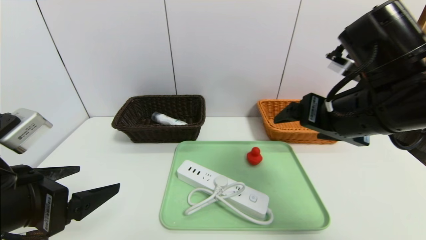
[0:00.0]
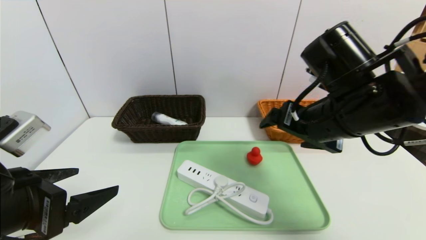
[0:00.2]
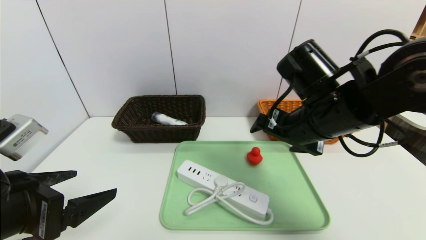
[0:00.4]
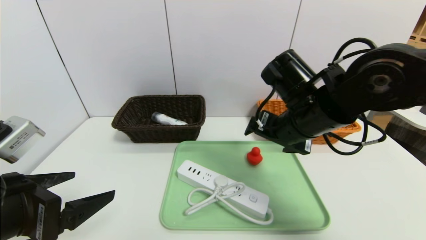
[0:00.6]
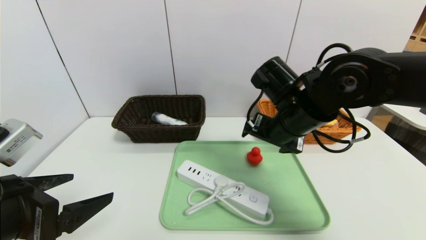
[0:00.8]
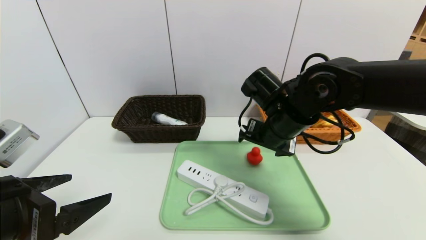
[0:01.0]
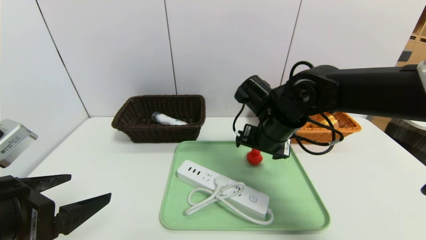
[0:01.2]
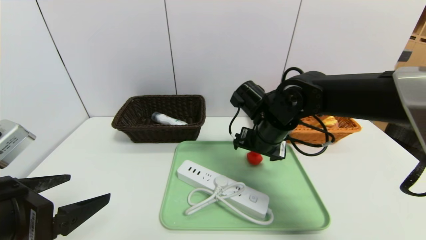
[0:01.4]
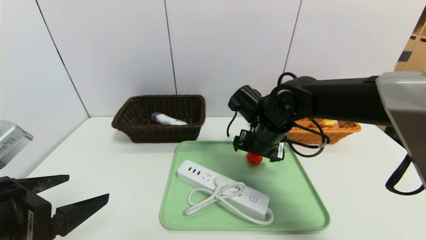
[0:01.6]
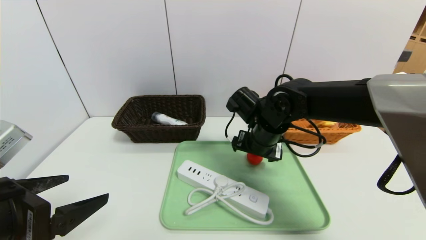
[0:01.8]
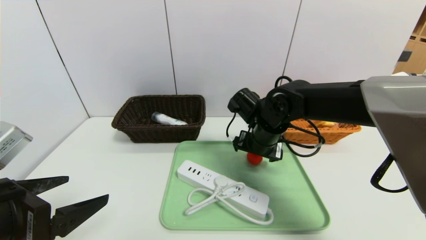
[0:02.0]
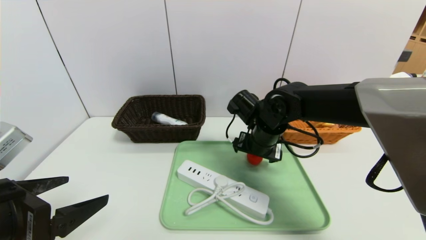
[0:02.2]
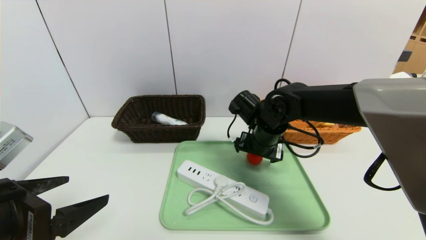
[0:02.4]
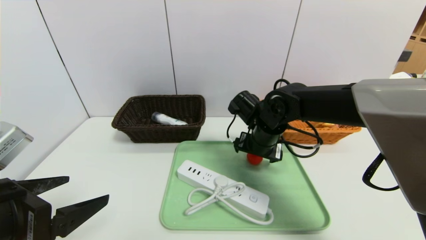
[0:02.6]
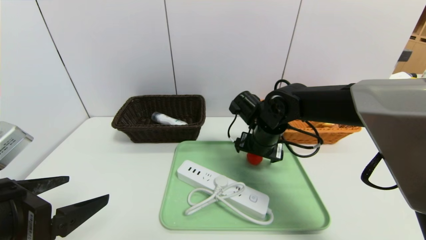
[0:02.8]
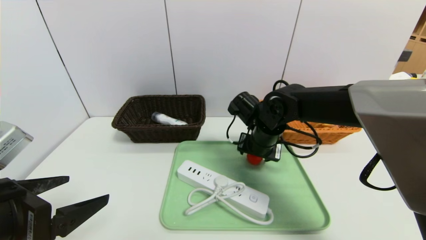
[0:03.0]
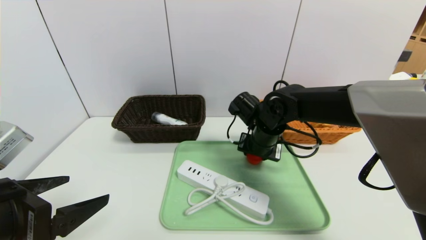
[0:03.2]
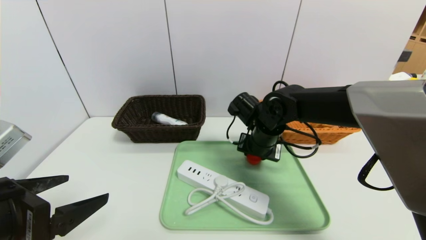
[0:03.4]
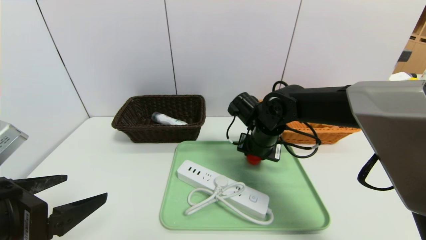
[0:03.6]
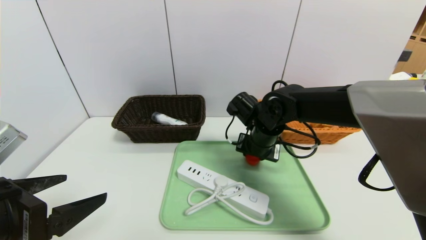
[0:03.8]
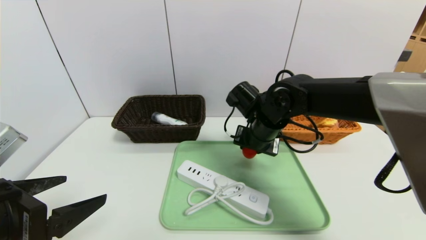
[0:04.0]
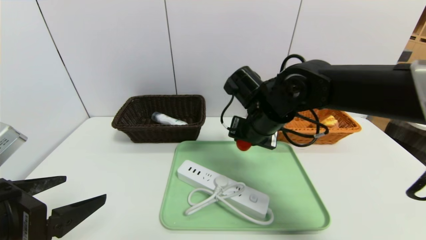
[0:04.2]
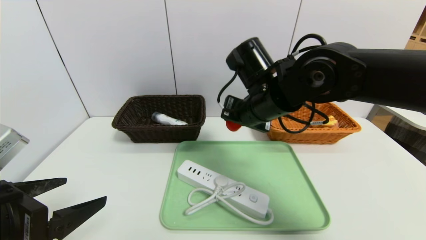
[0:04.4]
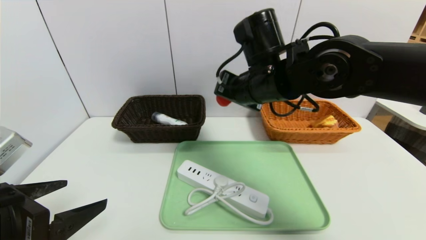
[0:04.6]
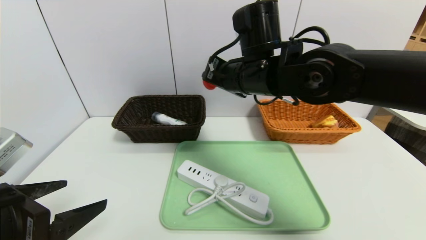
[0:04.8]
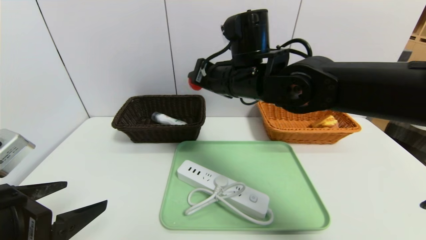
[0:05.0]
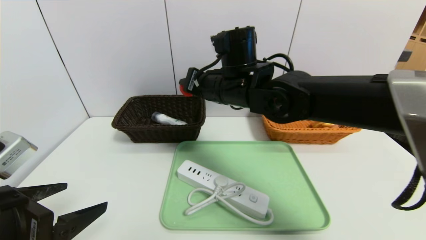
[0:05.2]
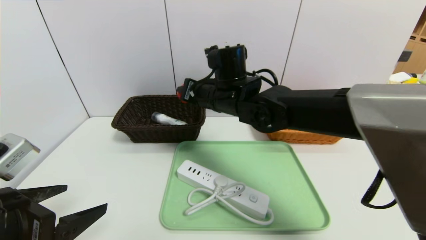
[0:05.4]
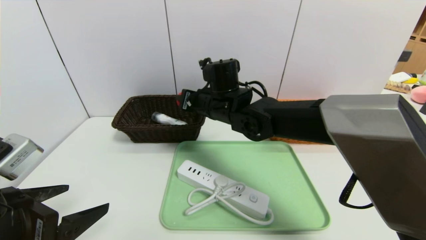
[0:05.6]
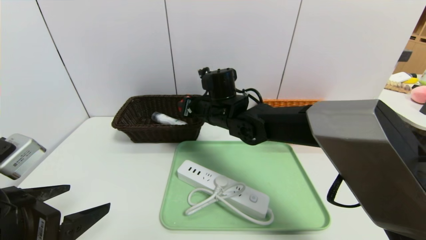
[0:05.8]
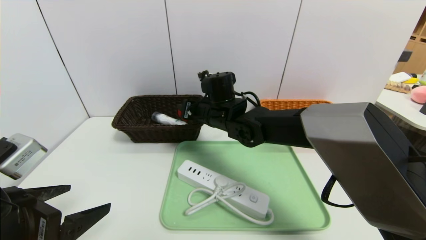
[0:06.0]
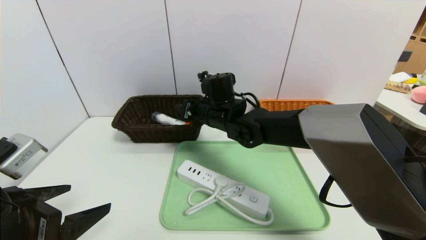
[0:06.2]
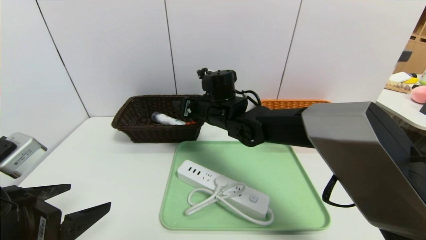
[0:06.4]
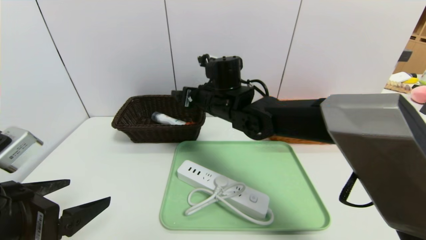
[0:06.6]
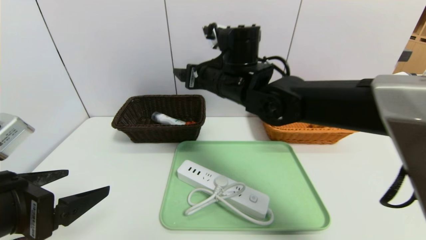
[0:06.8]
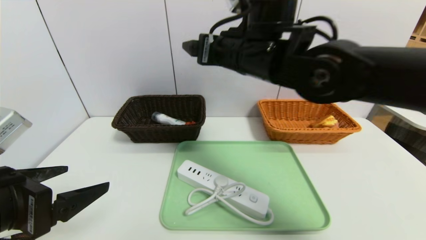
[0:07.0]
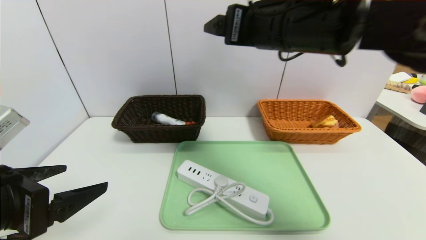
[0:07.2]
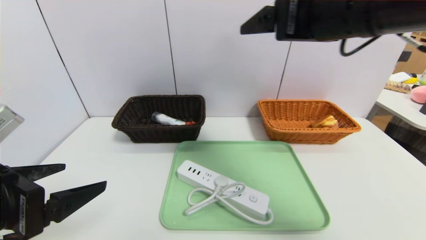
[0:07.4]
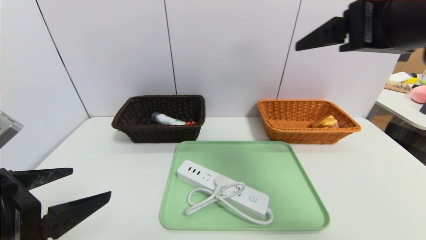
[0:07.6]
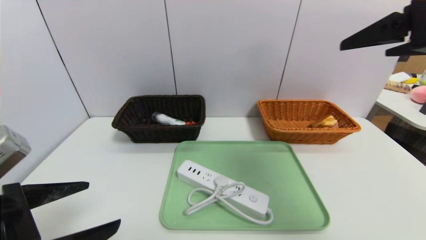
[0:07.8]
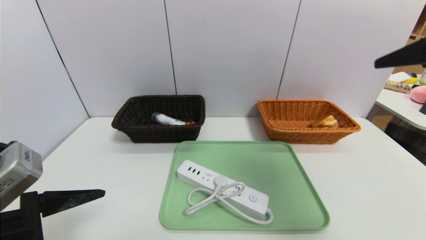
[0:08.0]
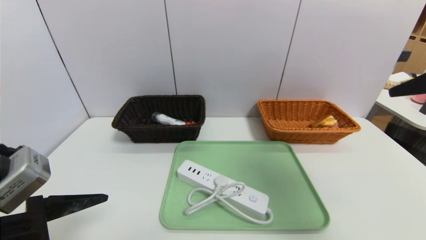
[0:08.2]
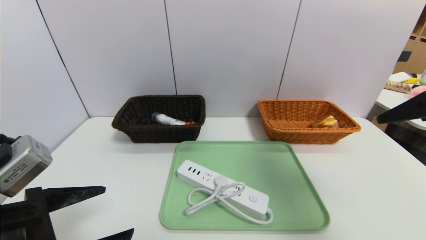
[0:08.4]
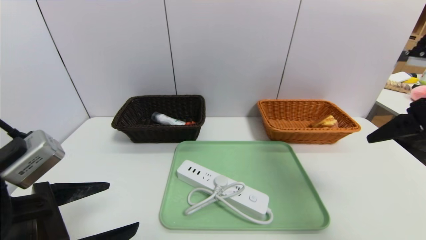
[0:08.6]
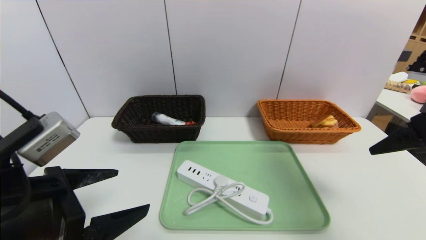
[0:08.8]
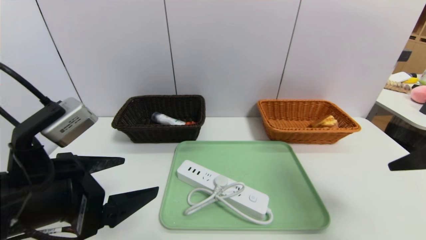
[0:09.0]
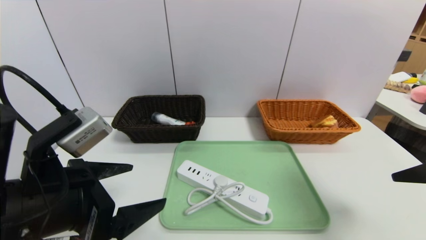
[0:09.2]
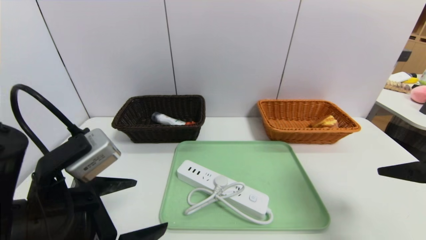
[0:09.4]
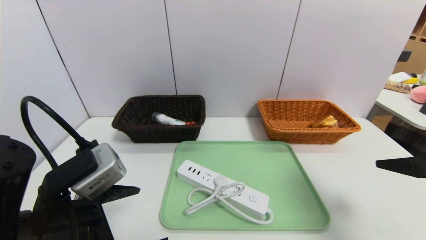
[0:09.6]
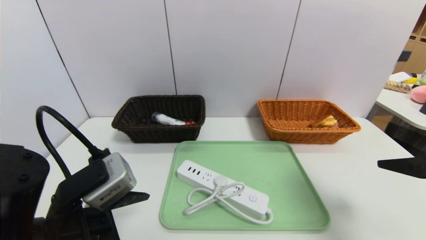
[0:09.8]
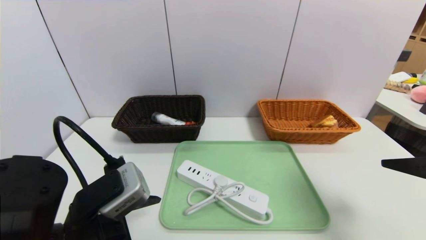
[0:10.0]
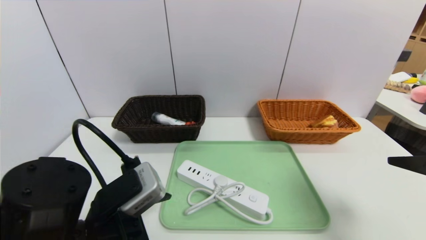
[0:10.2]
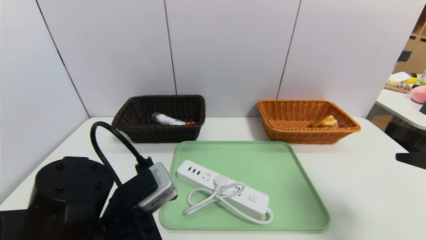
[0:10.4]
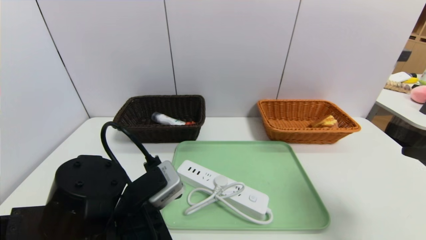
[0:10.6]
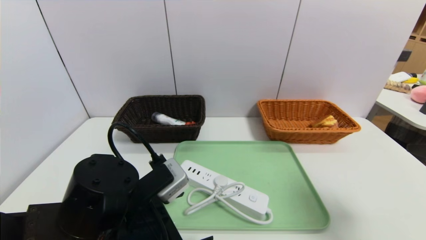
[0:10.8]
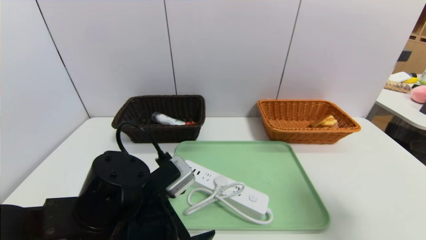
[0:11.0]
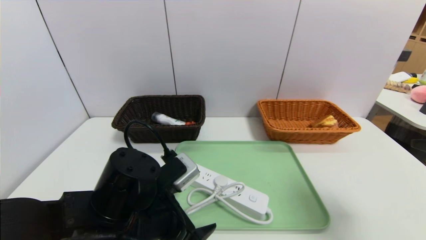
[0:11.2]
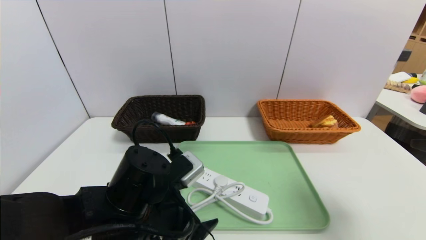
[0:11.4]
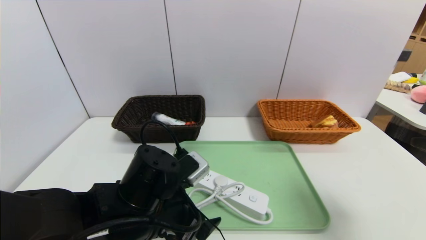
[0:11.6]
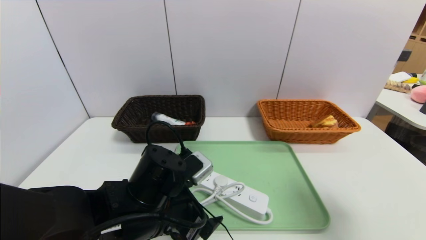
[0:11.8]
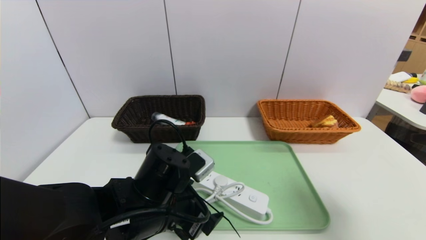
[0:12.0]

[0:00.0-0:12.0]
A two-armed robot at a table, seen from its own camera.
Task of the whole recording: place the food in the right basket with the right gripper, and place the non food items in the left basket with the left gripper.
0:00.0 to 0:01.6: The right gripper moves downward, forward and to the left, approximately 20 cm.
0:01.6 to 0:03.0: The right gripper closes its fingers.
0:03.0 to 0:04.4: The right gripper goes roughly 10 cm upward, and closes up.
0:04.4 to 0:06.0: The right gripper is displaced to the left, forward and downward by approximately 15 cm.
0:06.0 to 0:07.6: The right gripper goes some 35 cm to the right, upward and backward, and opens.
0:07.6 to 0:09.0: The right gripper travels to the right, downward and backward by about 15 cm. The left gripper moves approximately 5 cm.
0:09.0 to 0:10.4: The left gripper shifts about 10 cm downward and to the right.
0:10.4 to 0:12.0: The left gripper is displaced forward and to the right by about 10 cm.

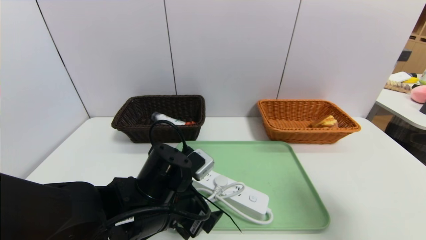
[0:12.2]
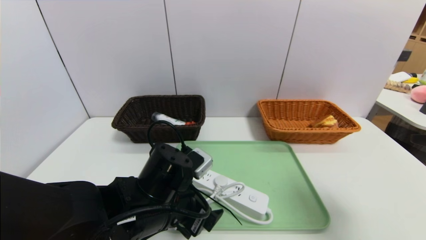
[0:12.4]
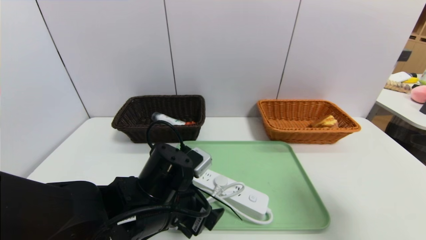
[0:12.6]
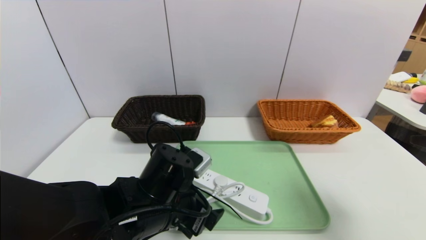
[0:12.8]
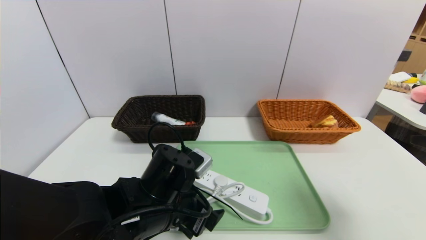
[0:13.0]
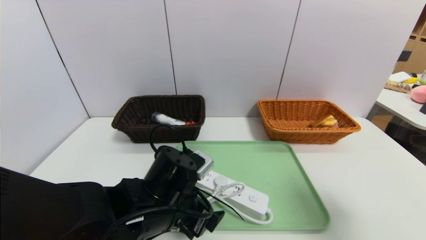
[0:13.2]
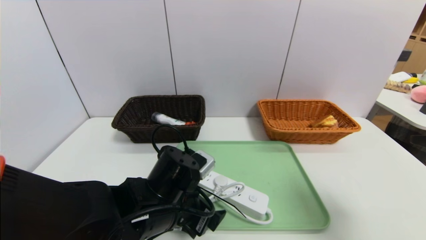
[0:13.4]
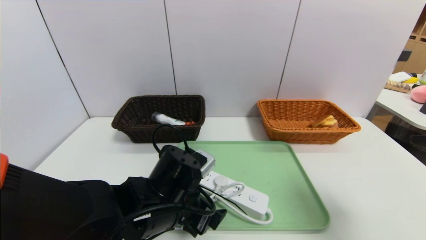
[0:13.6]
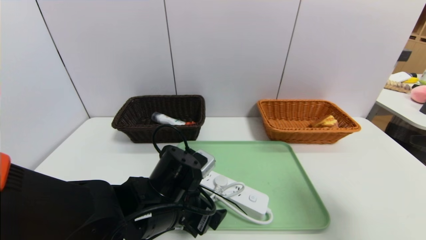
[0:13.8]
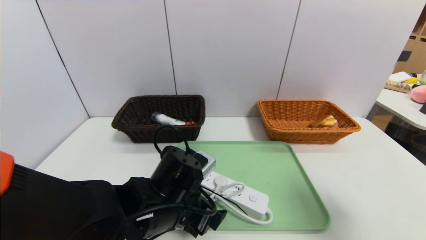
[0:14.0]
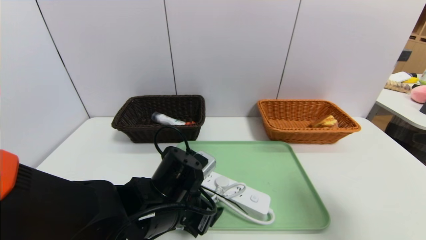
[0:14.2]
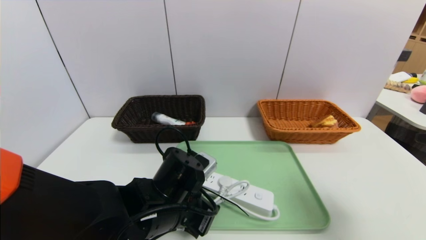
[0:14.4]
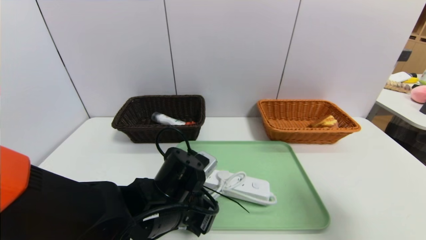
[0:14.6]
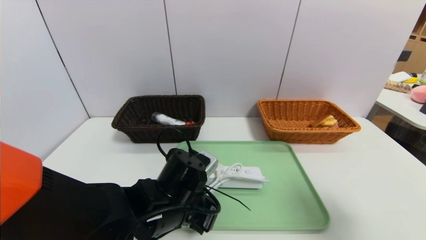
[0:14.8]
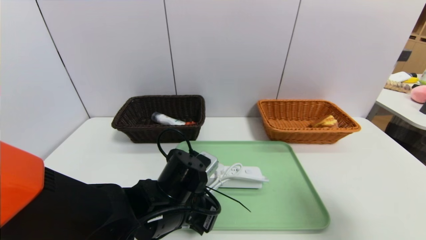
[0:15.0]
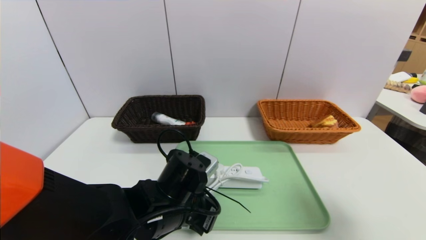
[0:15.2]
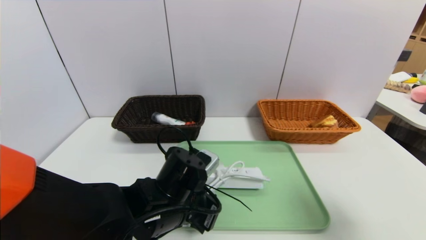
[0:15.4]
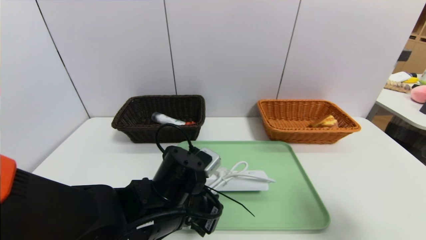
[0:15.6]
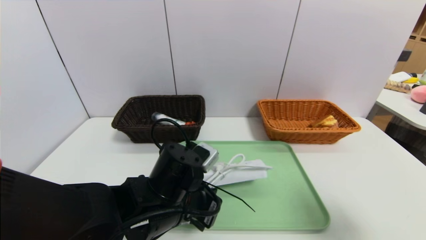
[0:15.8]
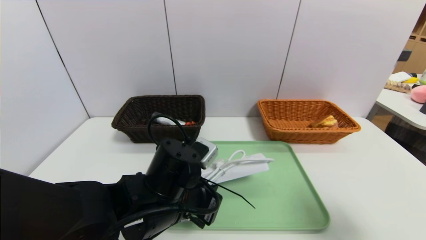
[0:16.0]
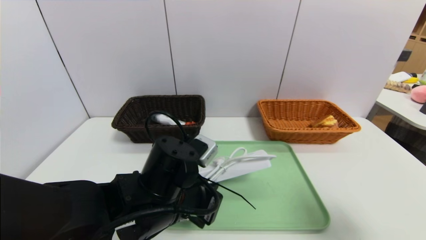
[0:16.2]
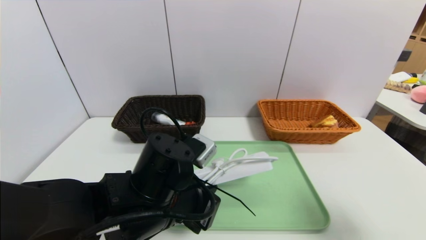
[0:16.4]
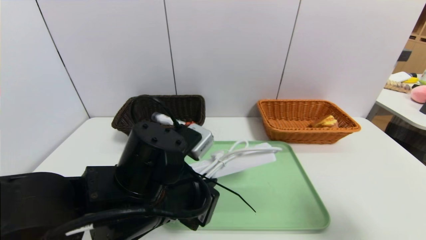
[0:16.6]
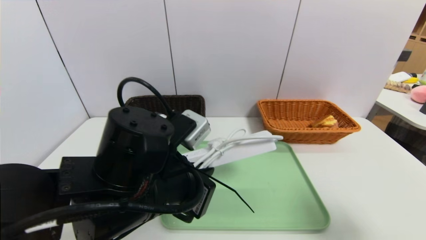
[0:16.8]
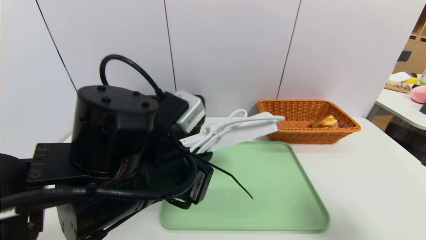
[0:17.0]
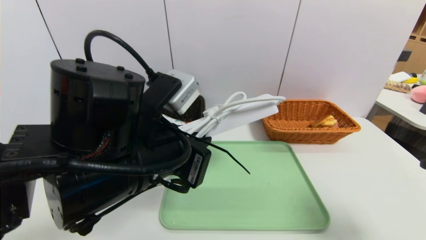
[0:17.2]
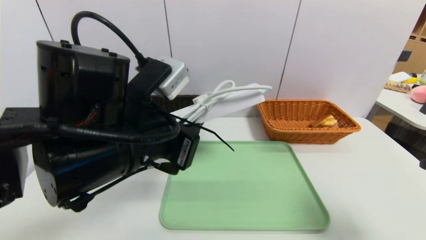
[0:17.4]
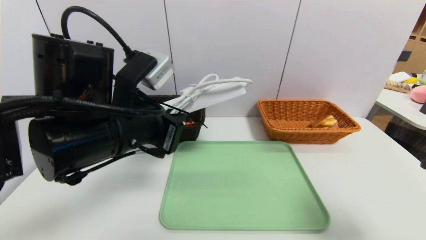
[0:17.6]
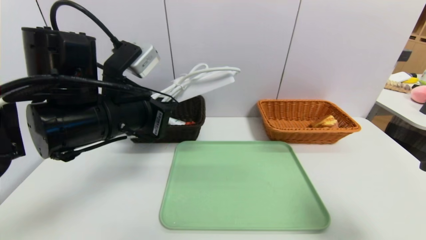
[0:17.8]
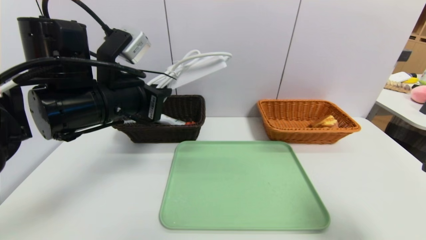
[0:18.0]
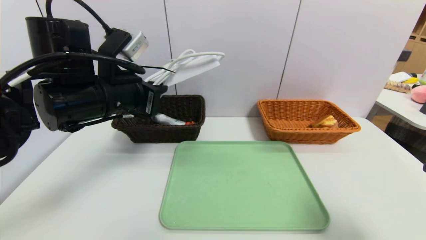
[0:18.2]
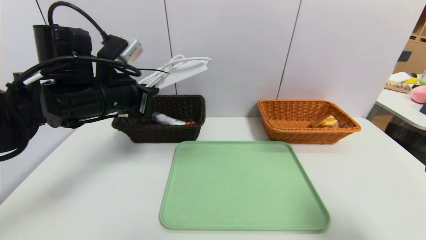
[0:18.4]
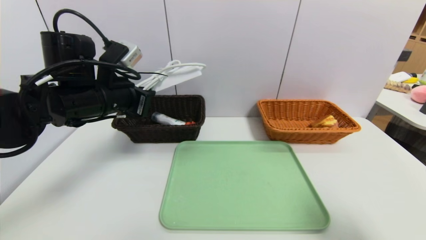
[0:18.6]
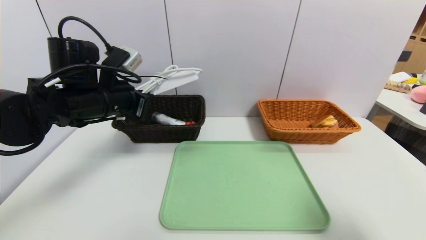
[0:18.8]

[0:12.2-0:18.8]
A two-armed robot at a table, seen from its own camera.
Task of the whole recording: place the food in the right basket with the right gripper, and place the non food items in the left basket with the left gripper.
0:12.2 to 0:13.8: There are only small adjustments of the grippers.
0:13.8 to 0:15.4: The left gripper closes its fingers.
0:15.4 to 0:17.2: The left gripper moves upward, some 15 cm.
0:17.2 to 0:18.8: The left gripper is displaced forward and to the left by approximately 15 cm.
